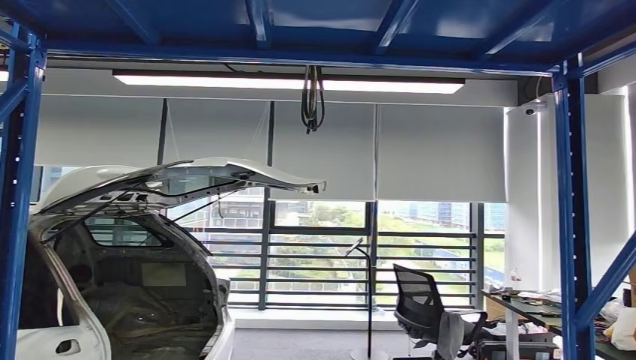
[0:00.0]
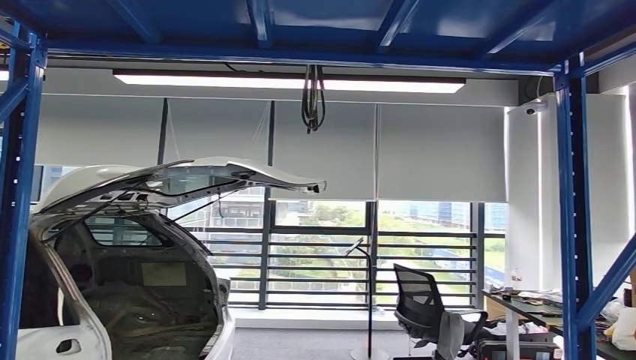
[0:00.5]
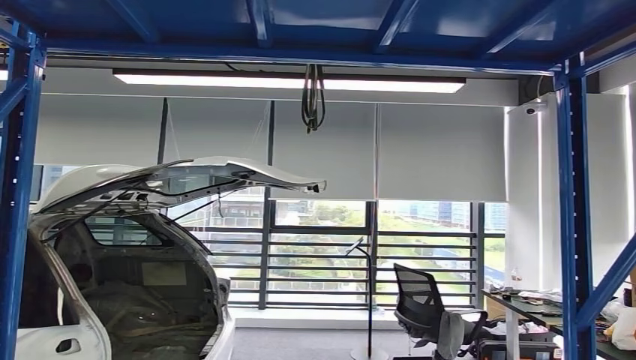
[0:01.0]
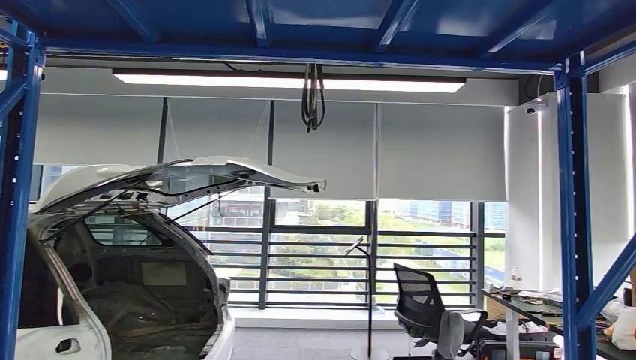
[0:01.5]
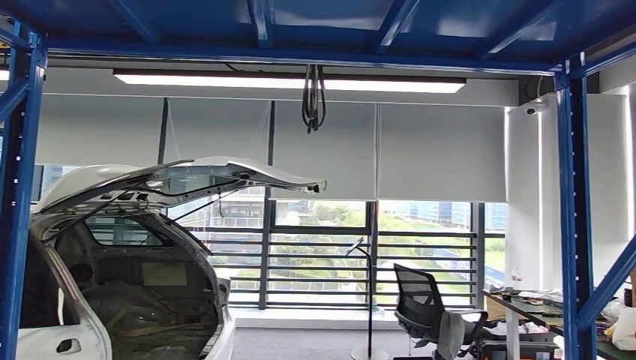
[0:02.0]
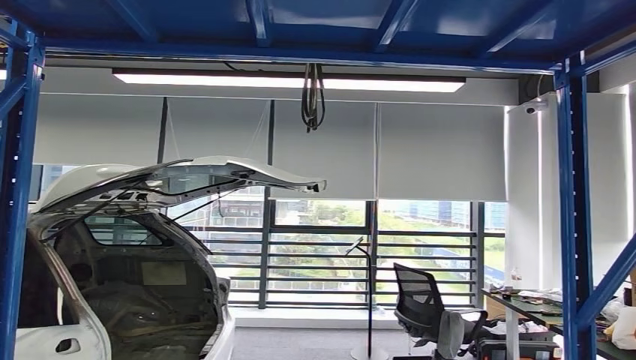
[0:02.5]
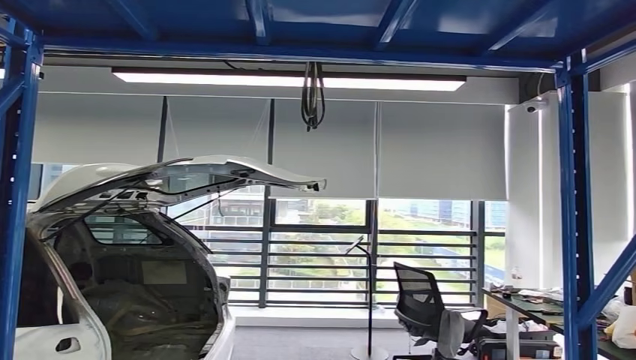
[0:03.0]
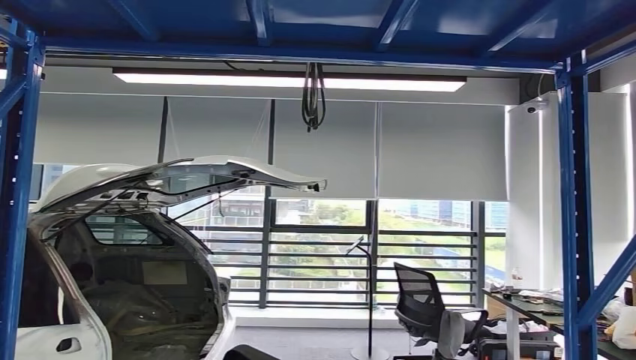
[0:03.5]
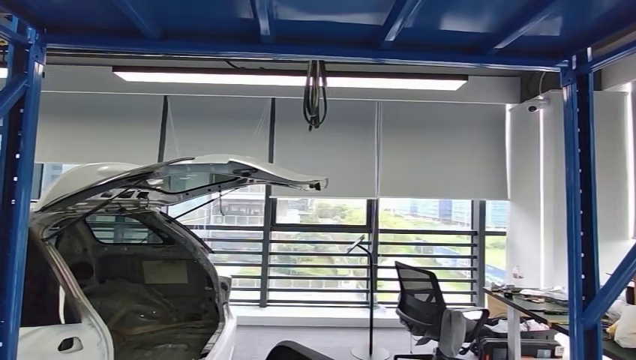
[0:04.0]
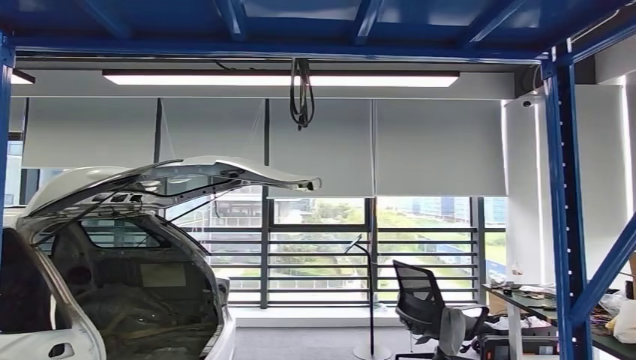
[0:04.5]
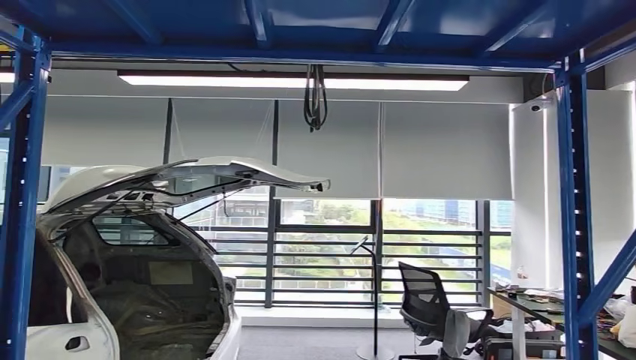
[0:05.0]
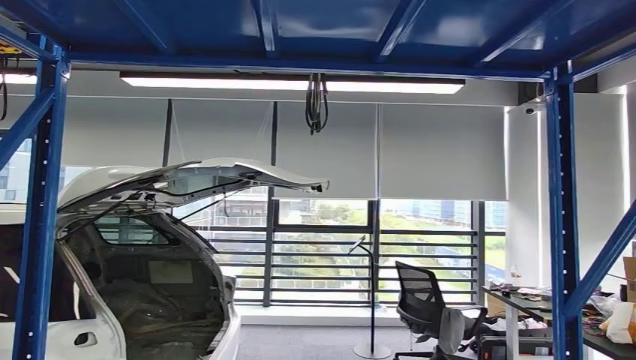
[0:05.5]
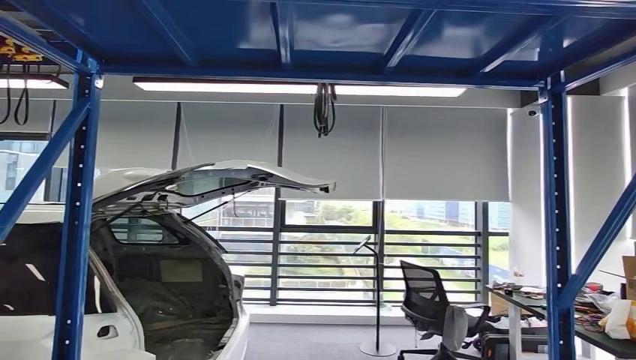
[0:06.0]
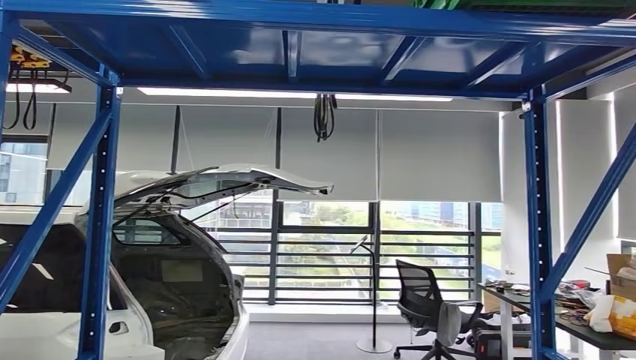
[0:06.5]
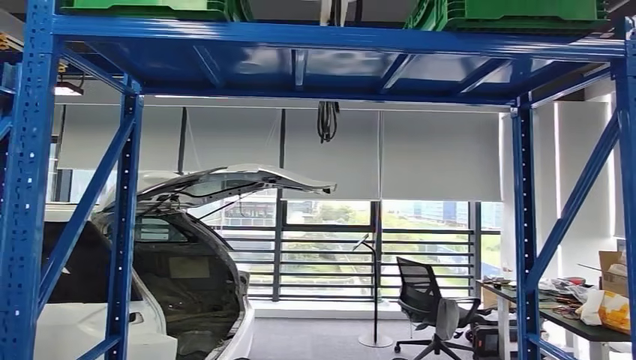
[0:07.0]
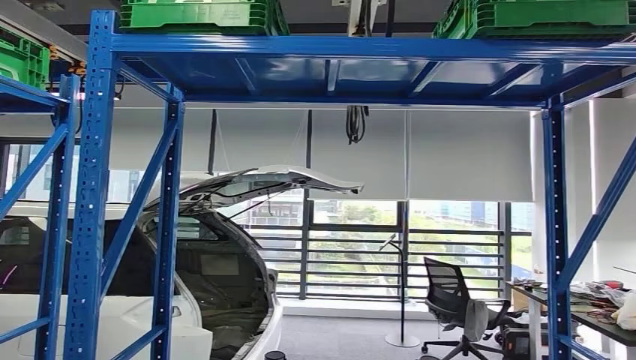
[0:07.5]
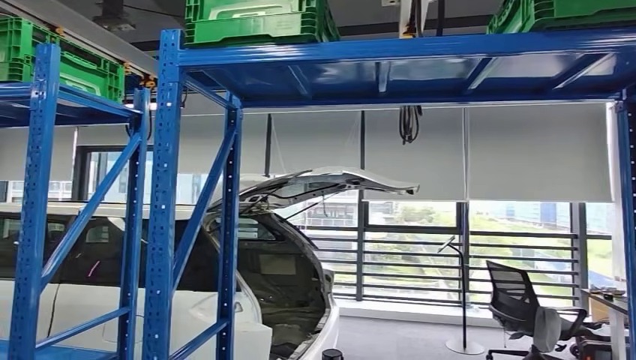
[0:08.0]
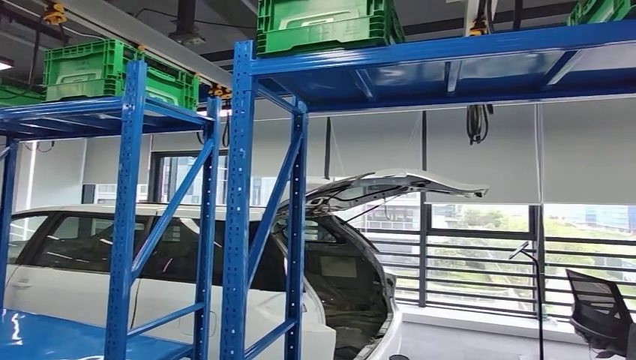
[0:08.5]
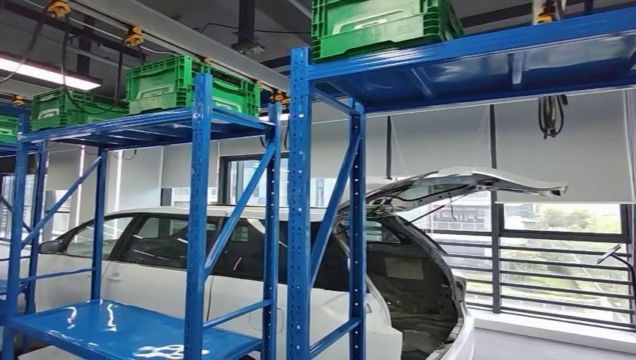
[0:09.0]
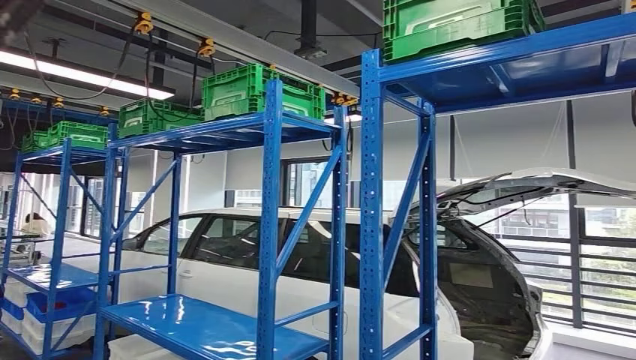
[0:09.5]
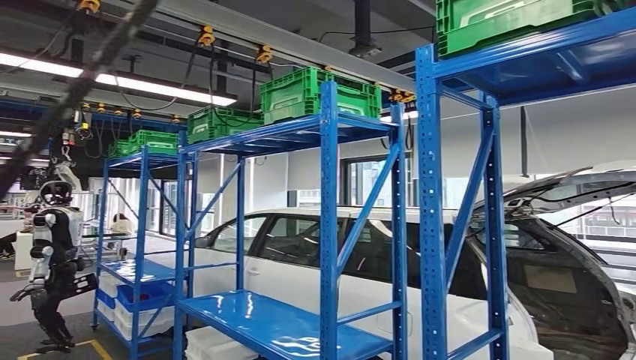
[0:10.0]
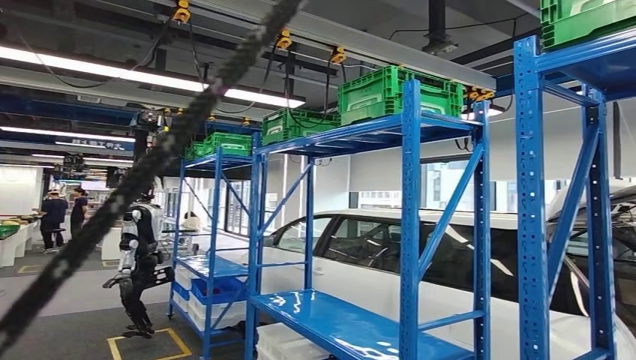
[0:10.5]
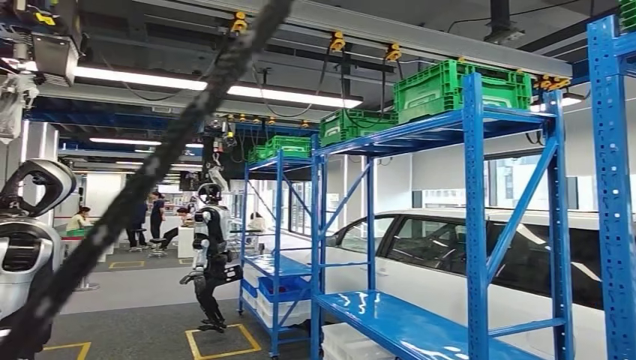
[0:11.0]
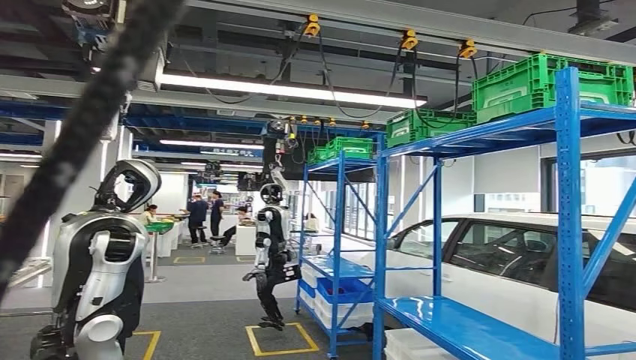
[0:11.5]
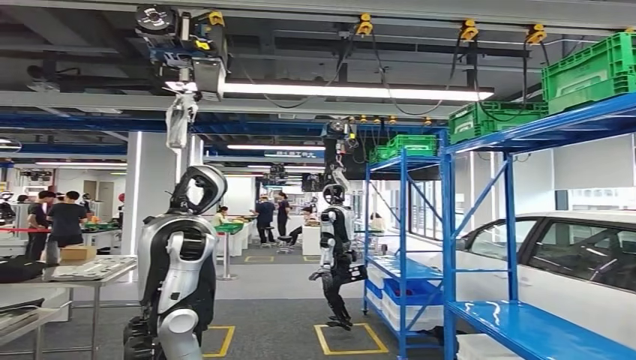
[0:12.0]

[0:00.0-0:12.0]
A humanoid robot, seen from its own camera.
Step, 0:00.0 to 0:03.0: Pick up the small component from the shelf.
0:00.0 to 0:02.0: The right hand travels to the left by some 10 cm.

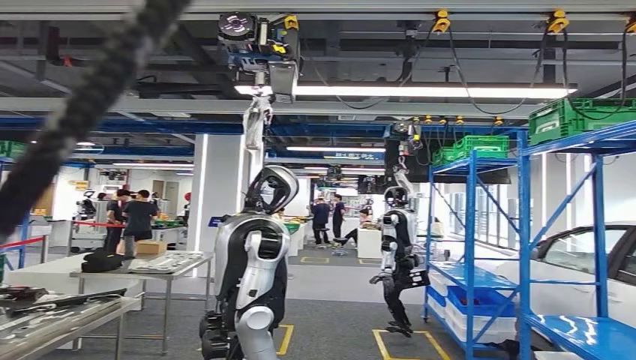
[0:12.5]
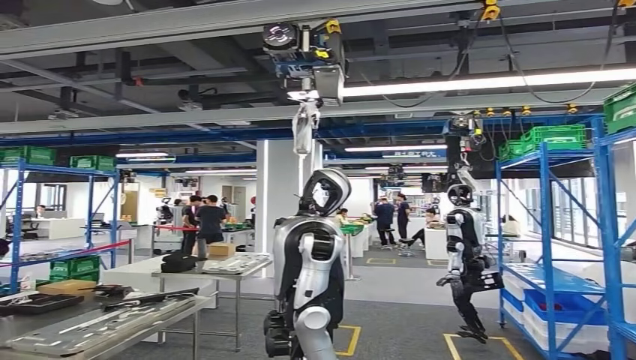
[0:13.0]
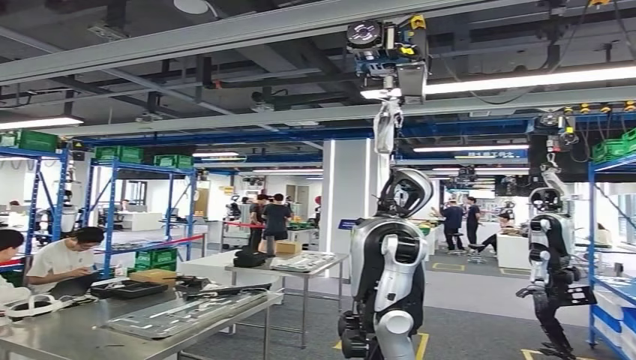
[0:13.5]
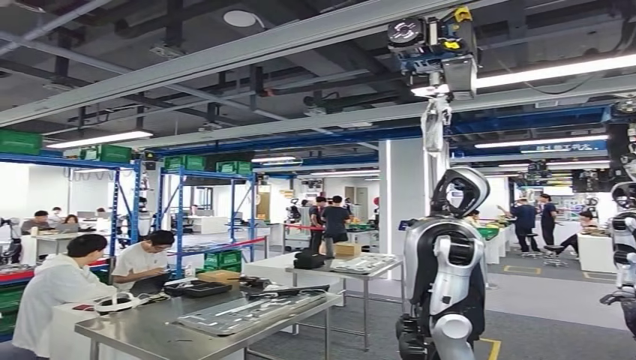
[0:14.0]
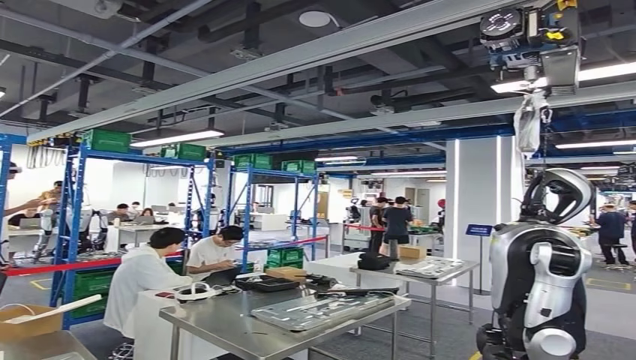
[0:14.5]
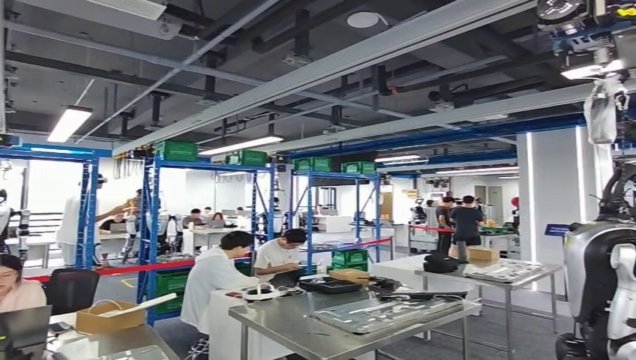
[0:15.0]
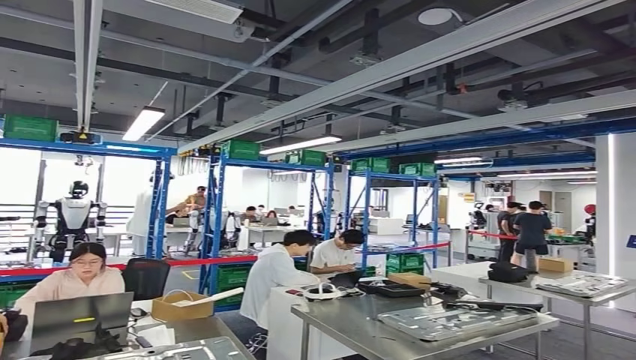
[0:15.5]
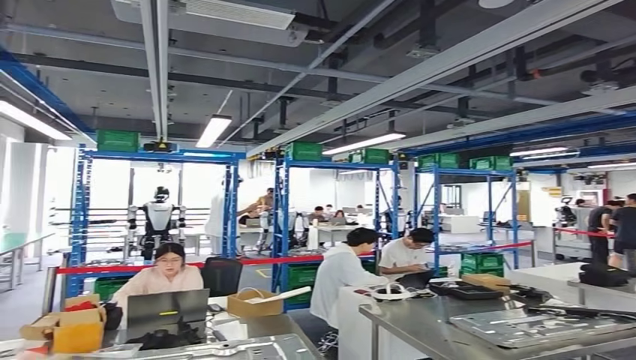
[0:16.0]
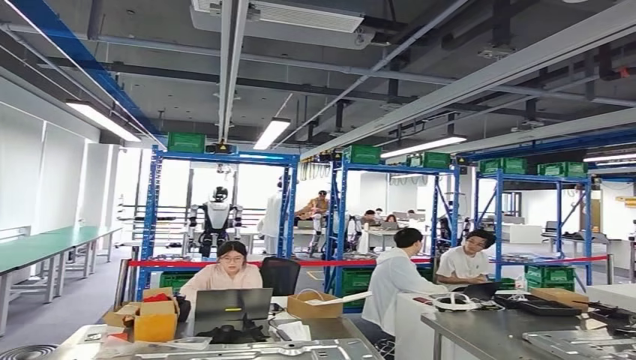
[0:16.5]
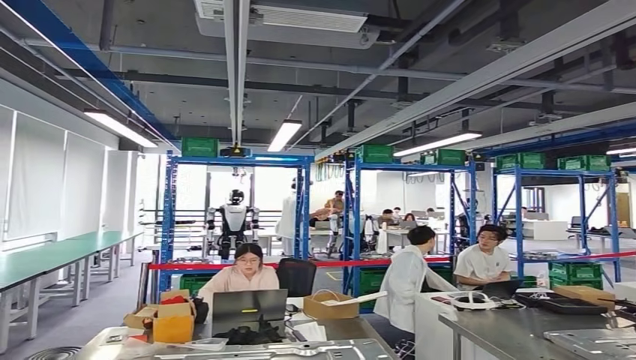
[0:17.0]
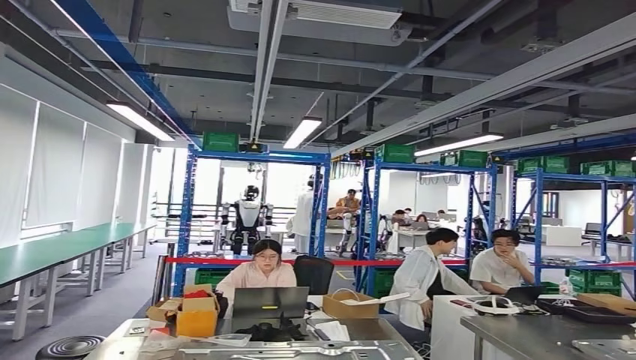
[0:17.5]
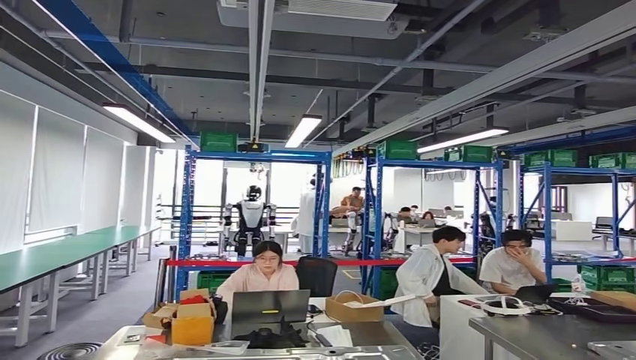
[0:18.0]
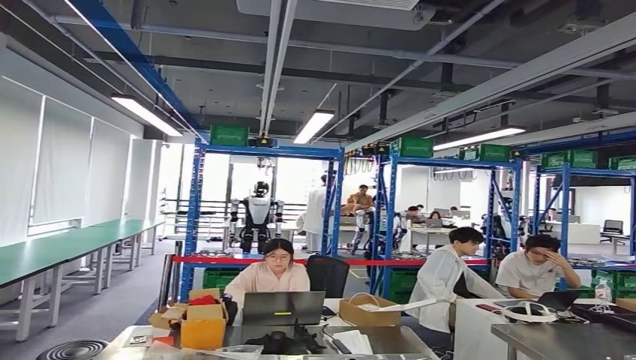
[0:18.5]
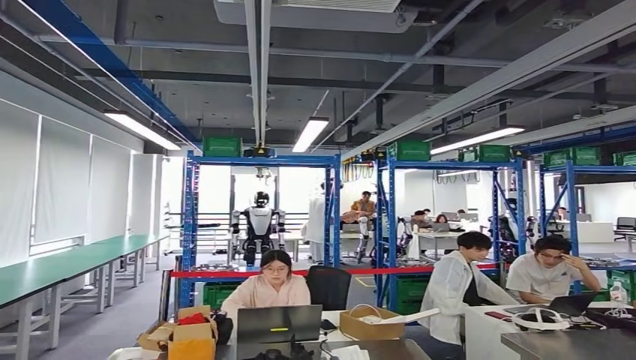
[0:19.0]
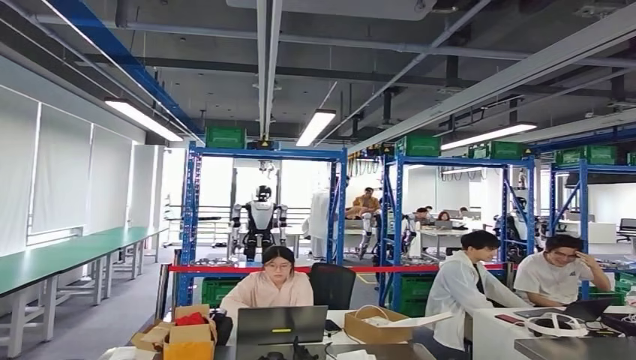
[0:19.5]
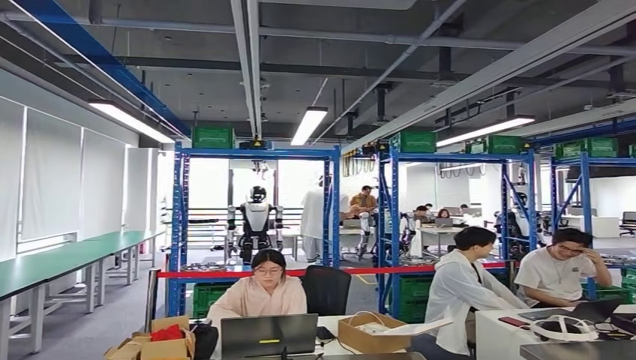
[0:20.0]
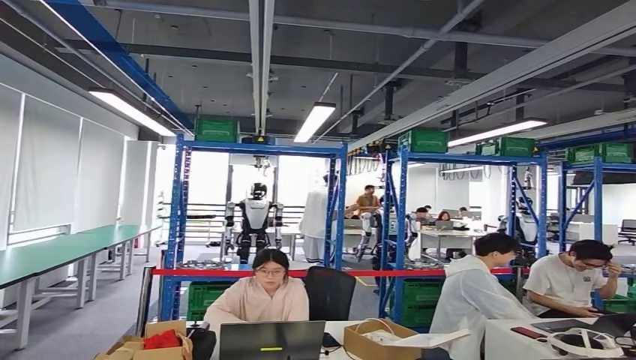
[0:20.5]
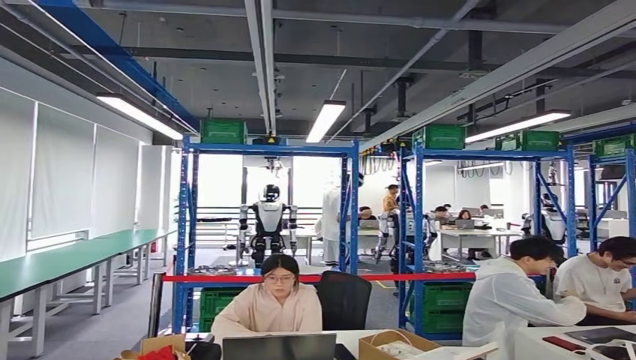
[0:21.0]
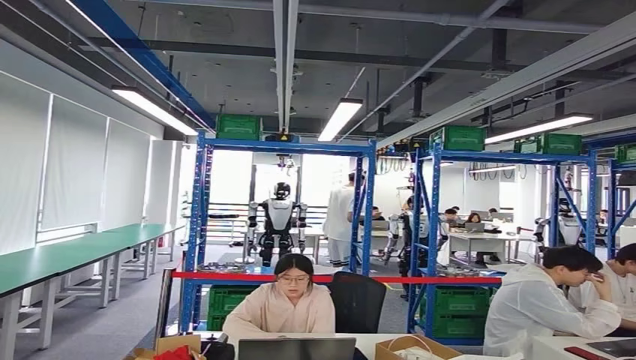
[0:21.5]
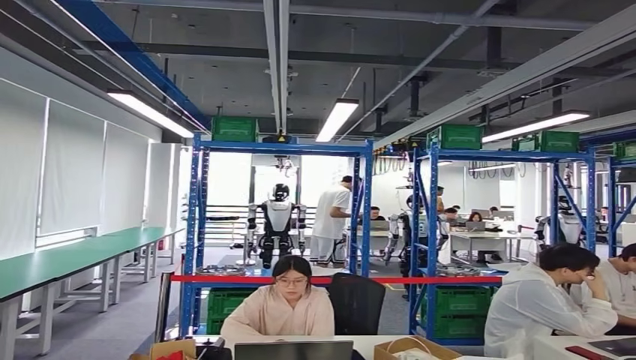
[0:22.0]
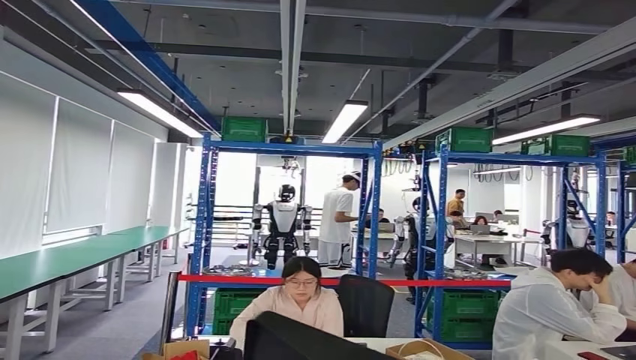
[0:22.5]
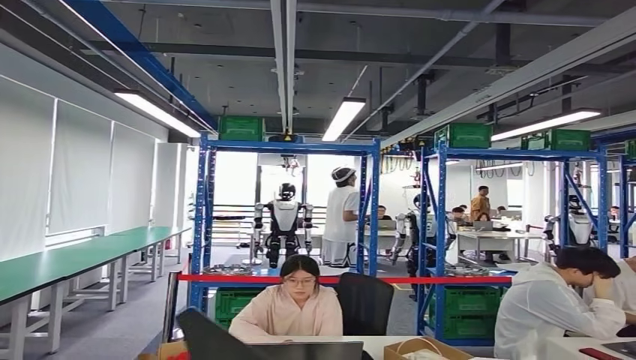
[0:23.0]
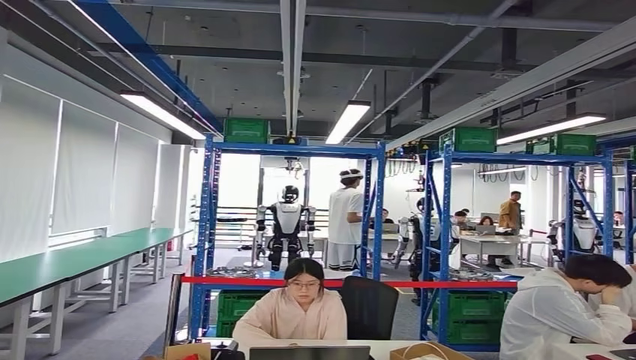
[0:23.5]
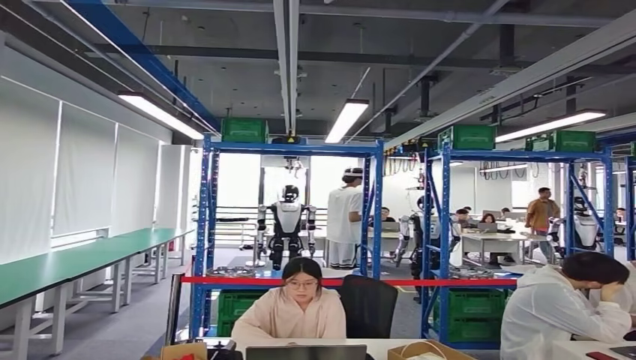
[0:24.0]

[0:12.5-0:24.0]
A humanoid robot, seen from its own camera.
Step, 0:12.5 to 0:24.0: Move the small component to the workbench.
